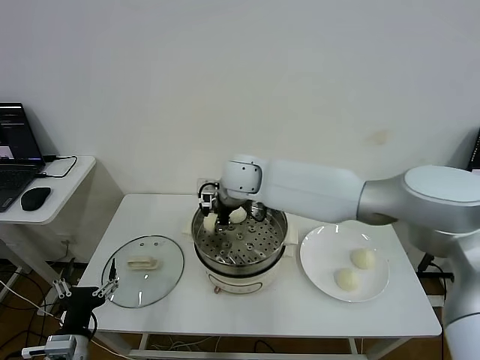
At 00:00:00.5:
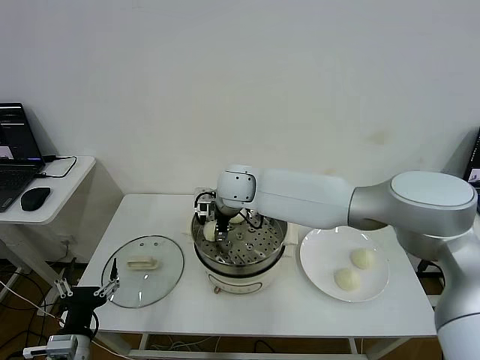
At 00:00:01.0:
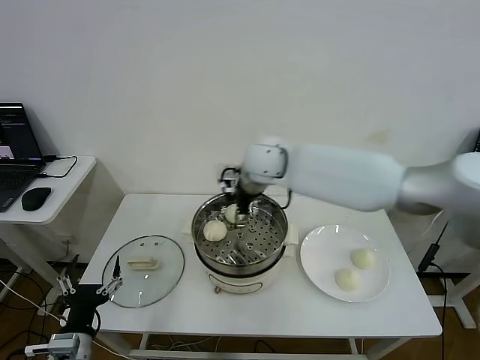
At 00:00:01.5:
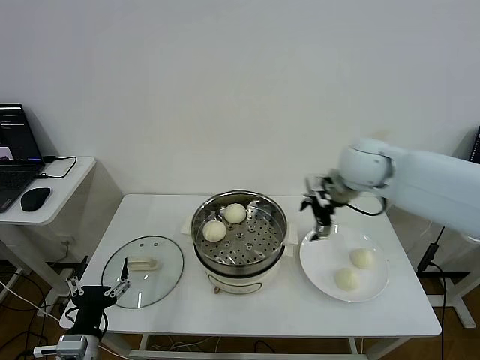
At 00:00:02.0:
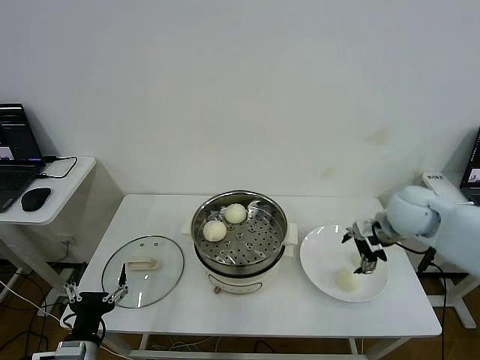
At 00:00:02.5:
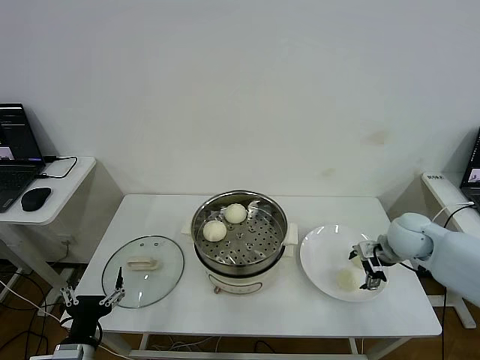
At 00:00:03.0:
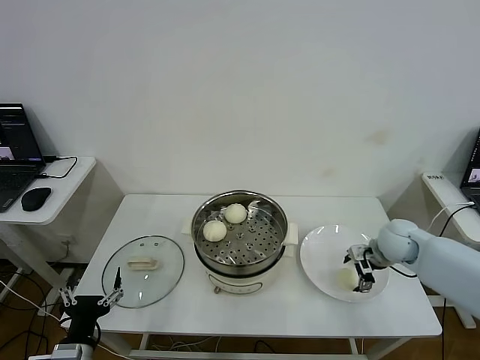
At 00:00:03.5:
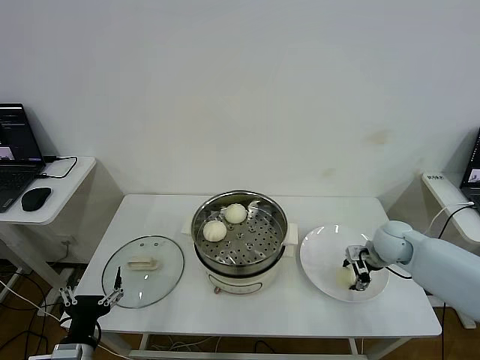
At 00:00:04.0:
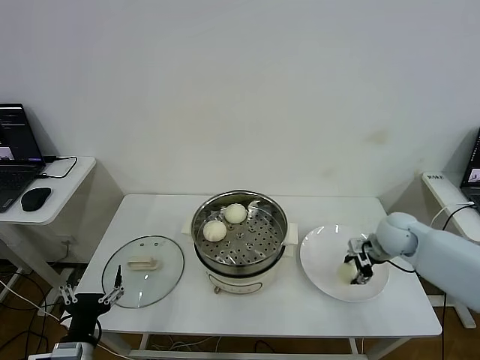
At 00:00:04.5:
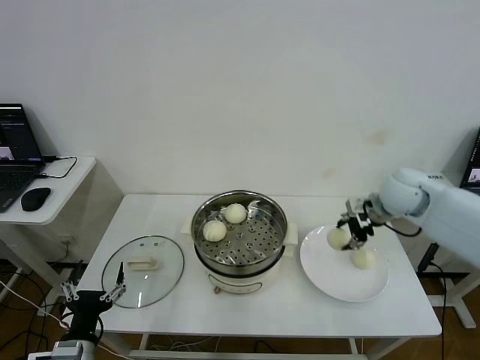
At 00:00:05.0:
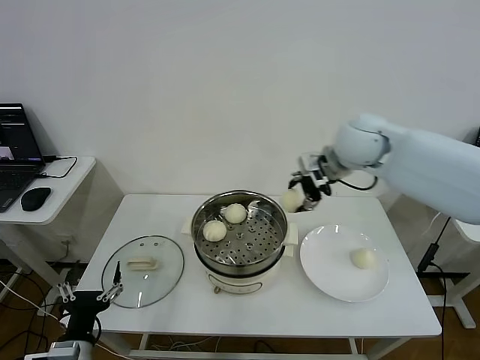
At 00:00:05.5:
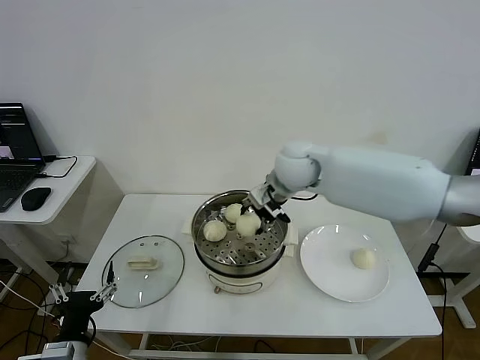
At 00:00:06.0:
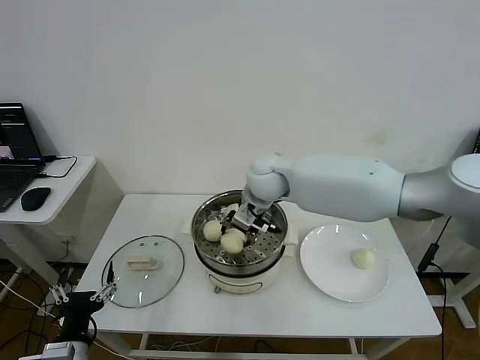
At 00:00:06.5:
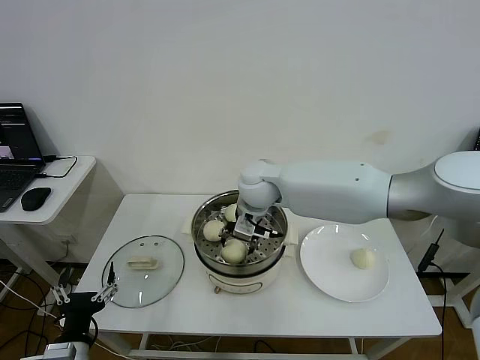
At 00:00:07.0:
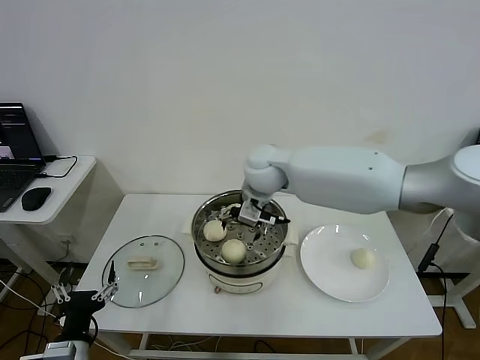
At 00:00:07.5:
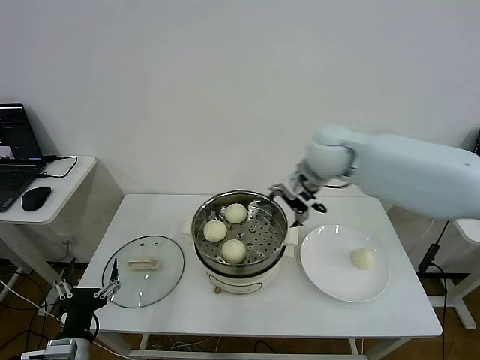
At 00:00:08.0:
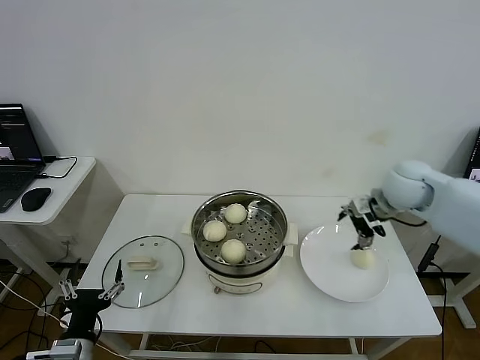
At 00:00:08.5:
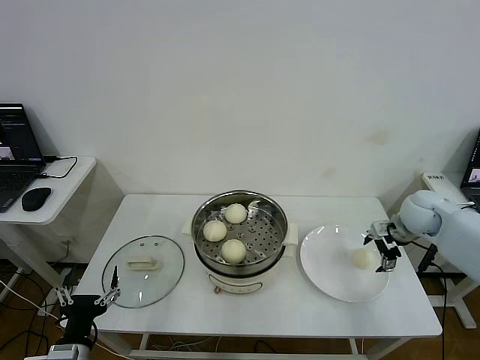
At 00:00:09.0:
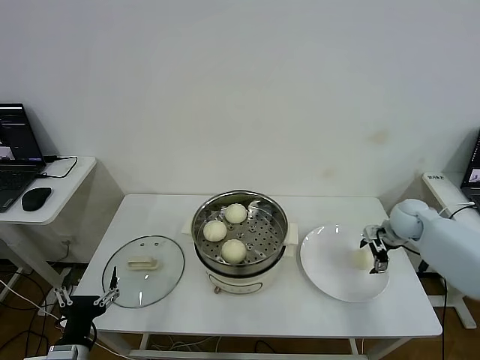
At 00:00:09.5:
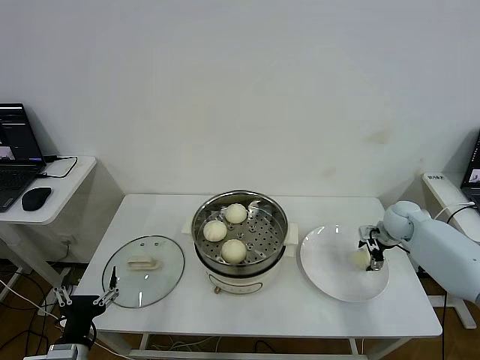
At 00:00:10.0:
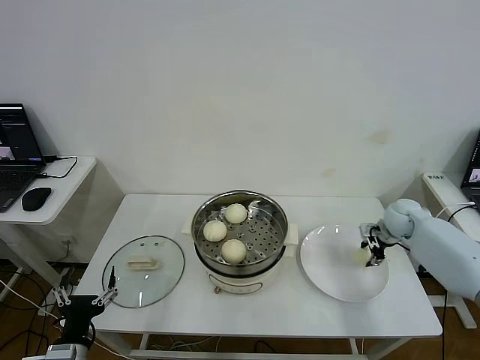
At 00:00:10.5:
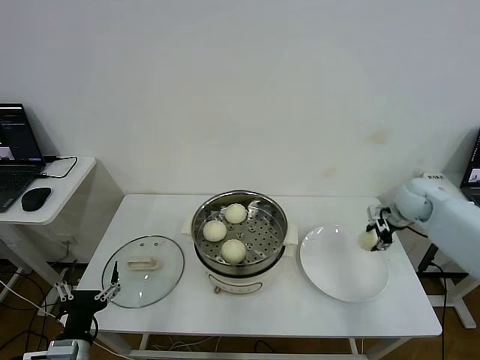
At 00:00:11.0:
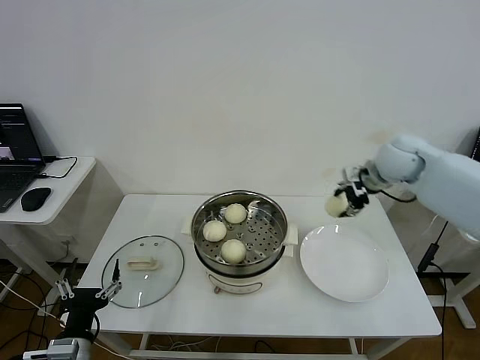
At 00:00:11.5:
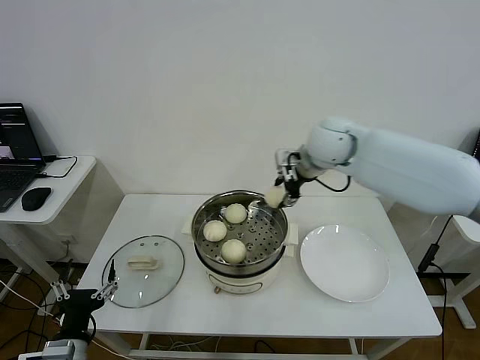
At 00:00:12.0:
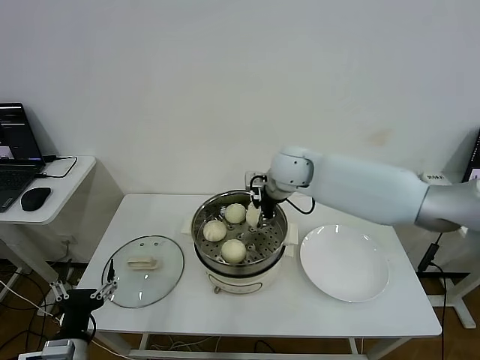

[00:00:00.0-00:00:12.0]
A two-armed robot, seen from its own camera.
Step, 00:00:01.0 to 00:00:03.5: Grasp the baozi in the plate with right gripper.
Step, 00:00:04.0 to 00:00:06.5: Place the baozi on the steamer with right gripper.
Step, 00:00:07.0 to 00:00:09.5: Grasp the baozi in the plate with right gripper.
00:00:00.0 to 00:00:02.0: The right gripper goes some 35 cm to the right, and opens its fingers.
00:00:02.0 to 00:00:04.0: The right gripper travels downward by some 10 cm, and closes.
00:00:04.0 to 00:00:06.0: The right gripper shifts roughly 30 cm to the left.
00:00:06.0 to 00:00:08.0: The right gripper heads to the right, covering some 30 cm, and opens up.
00:00:08.0 to 00:00:10.0: The right gripper goes roughly 15 cm downward and to the right, and closes.
00:00:10.0 to 00:00:12.0: The right gripper moves to the left and upward, approximately 35 cm.

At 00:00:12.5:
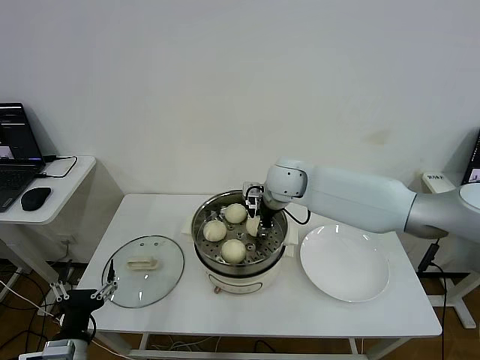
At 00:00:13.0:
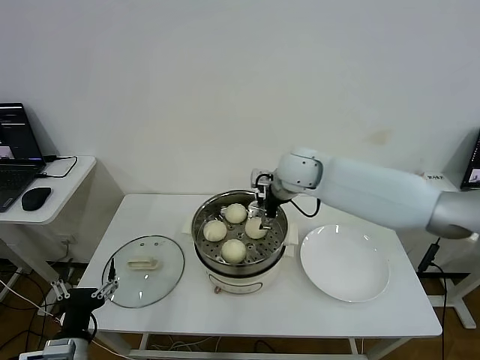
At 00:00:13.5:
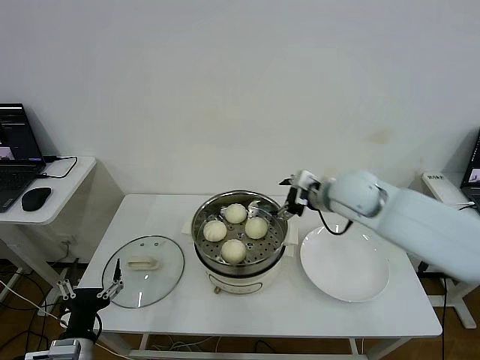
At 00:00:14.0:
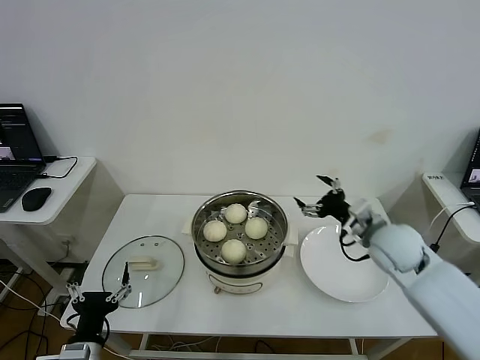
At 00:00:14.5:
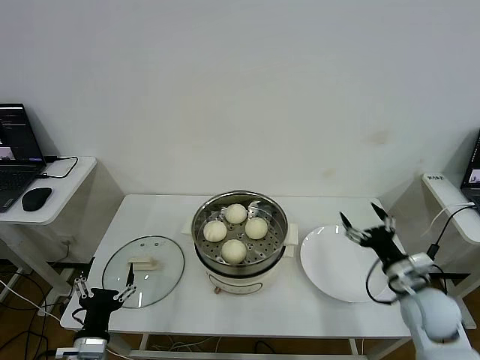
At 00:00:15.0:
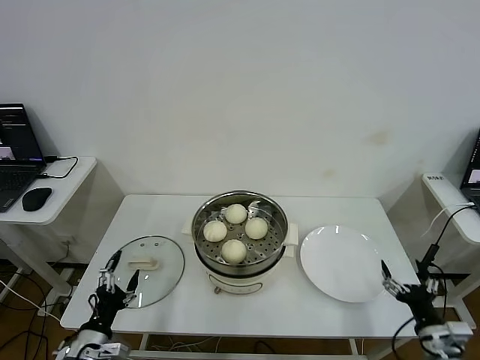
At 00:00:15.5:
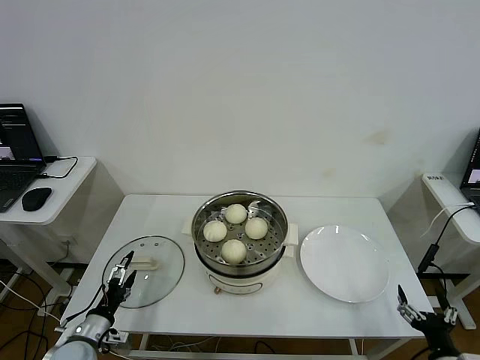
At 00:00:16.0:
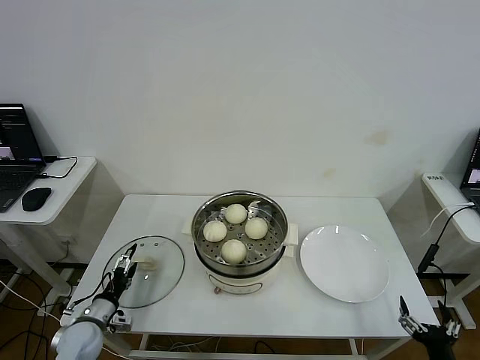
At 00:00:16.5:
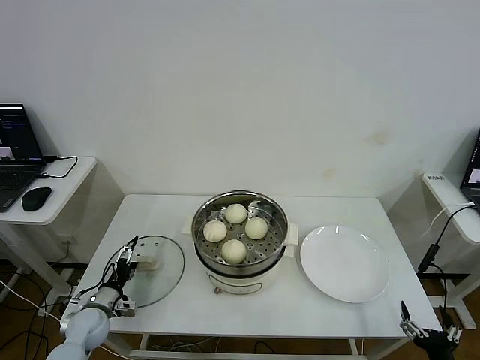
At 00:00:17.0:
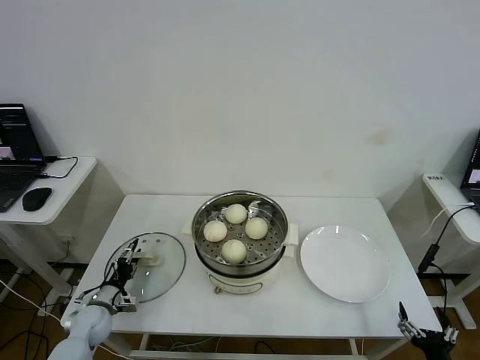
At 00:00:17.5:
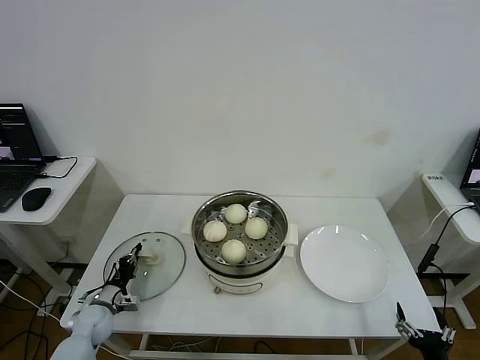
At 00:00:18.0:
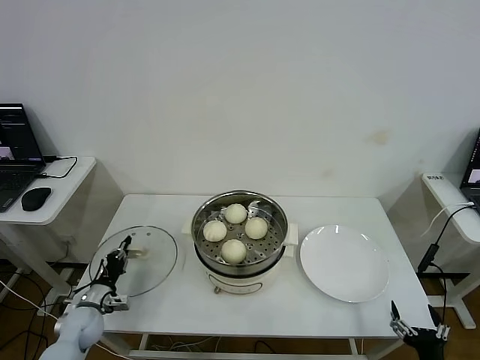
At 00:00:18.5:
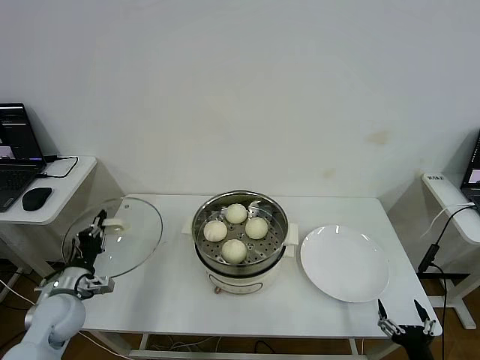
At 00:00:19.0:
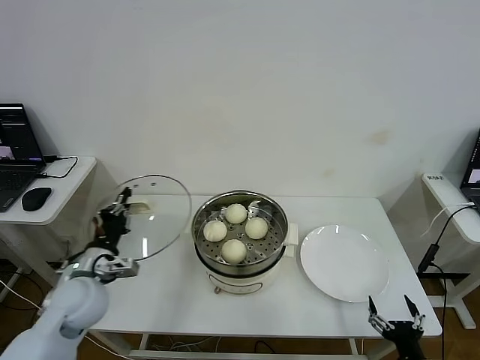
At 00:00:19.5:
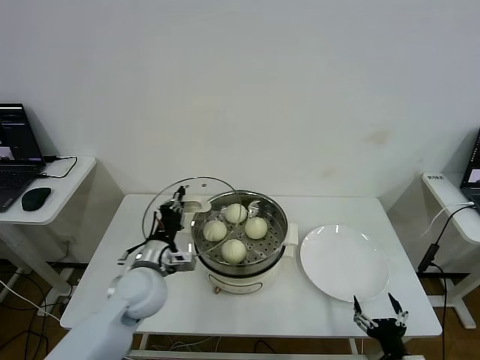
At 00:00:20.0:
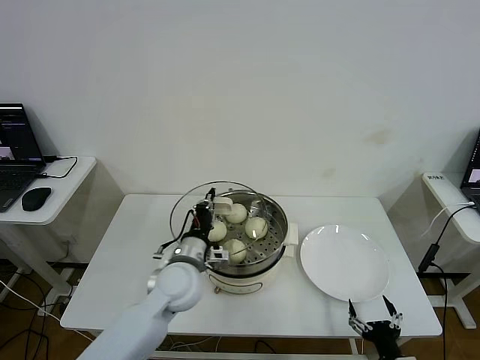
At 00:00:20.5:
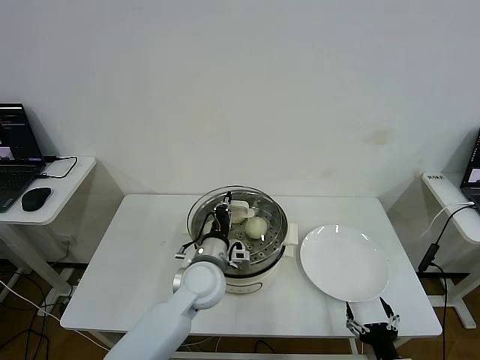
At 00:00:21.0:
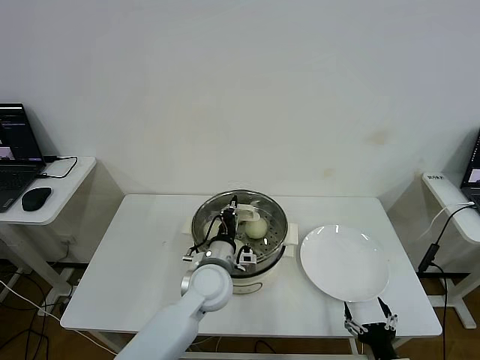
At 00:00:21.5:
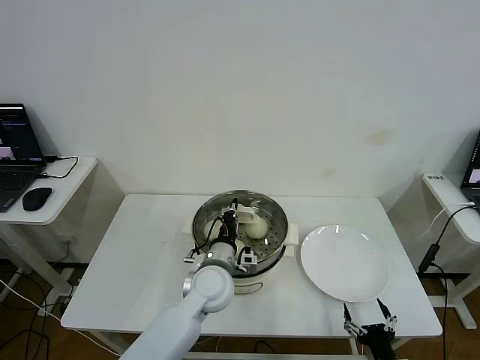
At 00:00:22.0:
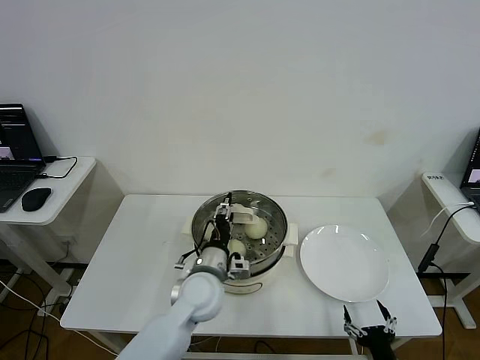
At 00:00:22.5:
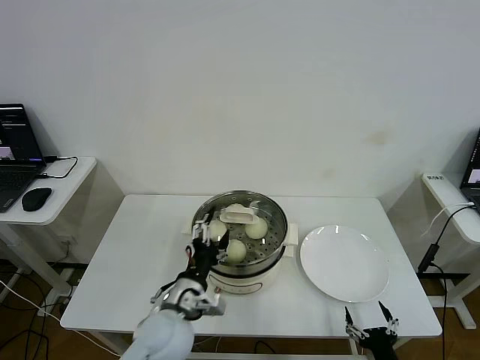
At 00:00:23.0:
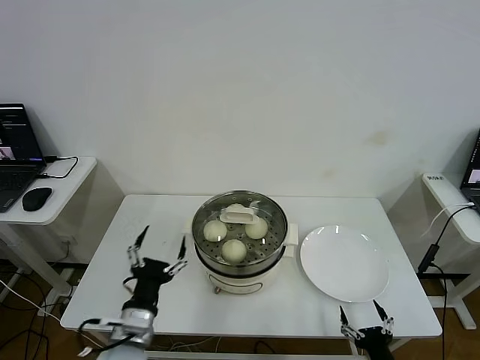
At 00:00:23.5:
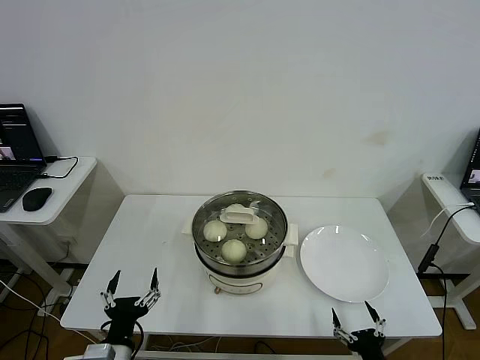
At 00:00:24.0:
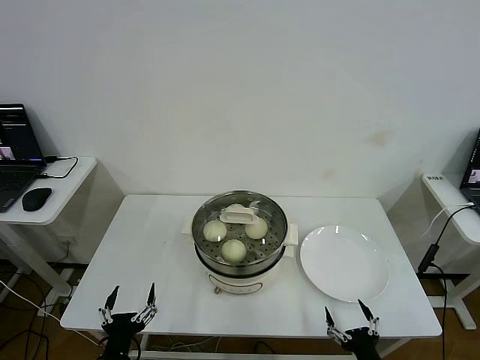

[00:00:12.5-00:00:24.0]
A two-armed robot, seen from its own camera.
Step, 00:00:13.0 to 00:00:17.5: Grasp the pot lid with left gripper.
Step, 00:00:18.0 to 00:00:22.0: Place the pot lid on the steamer with left gripper.
00:00:12.5 to 00:00:14.5: The right gripper travels to the right, backward and downward by about 40 cm, and opens.
00:00:14.5 to 00:00:16.5: The left gripper goes approximately 20 cm forward, downward and to the left, while the right gripper travels backward and downward by some 20 cm.
00:00:16.5 to 00:00:18.5: The left gripper is displaced upward by roughly 10 cm, and closes.
00:00:18.5 to 00:00:20.0: The left gripper goes some 25 cm to the right. Meanwhile the right gripper changes place by some 5 cm.
00:00:20.0 to 00:00:22.0: The left gripper heads to the right, covering approximately 5 cm, and opens its fingers.
00:00:22.0 to 00:00:24.0: The left gripper heads backward and to the left, covering approximately 30 cm, and opens.
